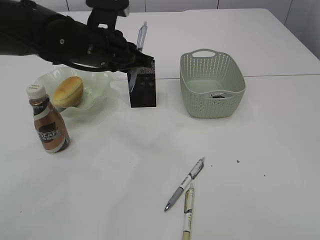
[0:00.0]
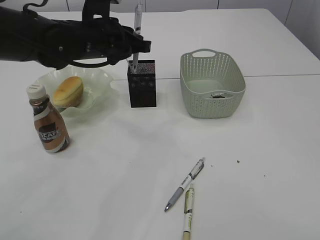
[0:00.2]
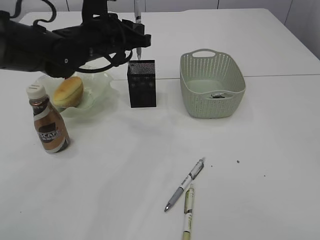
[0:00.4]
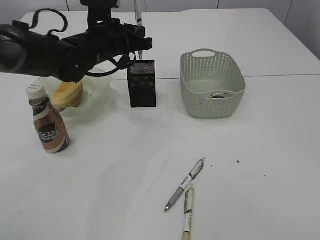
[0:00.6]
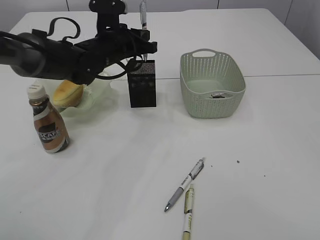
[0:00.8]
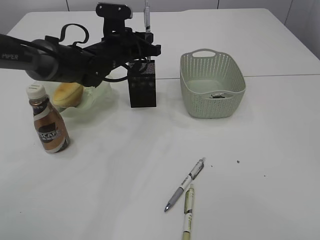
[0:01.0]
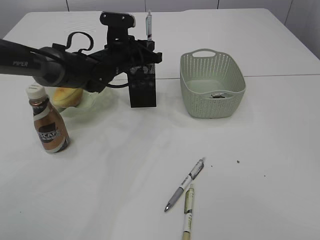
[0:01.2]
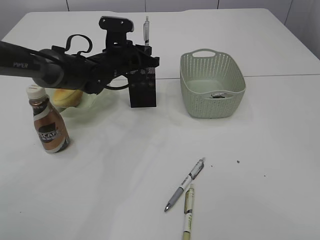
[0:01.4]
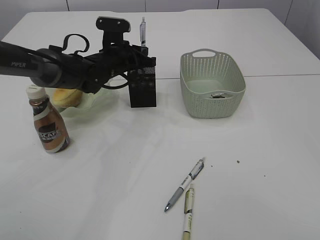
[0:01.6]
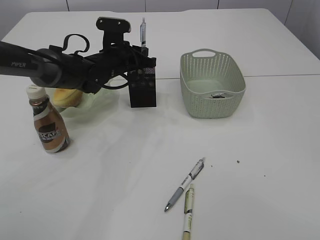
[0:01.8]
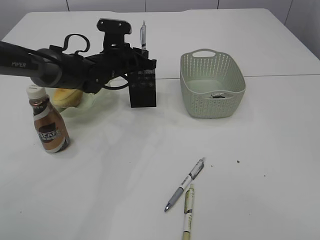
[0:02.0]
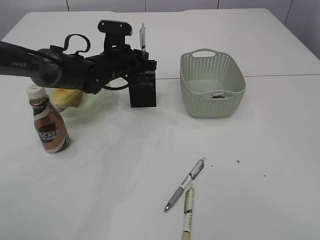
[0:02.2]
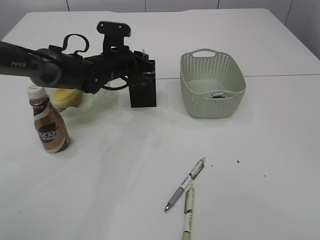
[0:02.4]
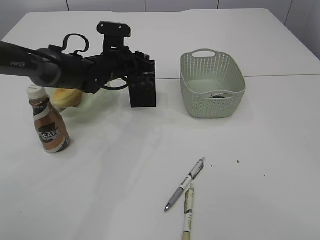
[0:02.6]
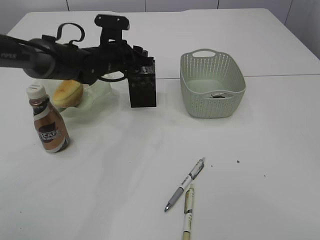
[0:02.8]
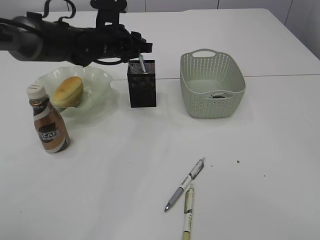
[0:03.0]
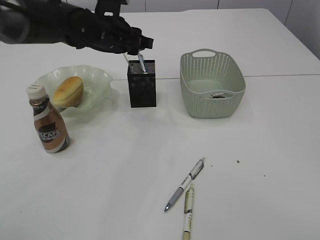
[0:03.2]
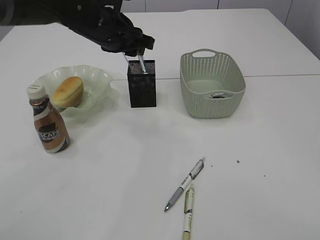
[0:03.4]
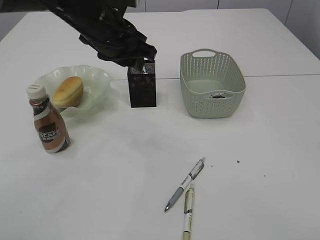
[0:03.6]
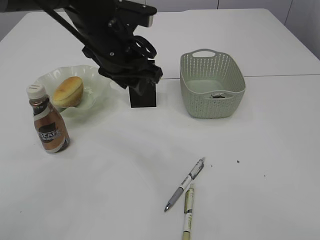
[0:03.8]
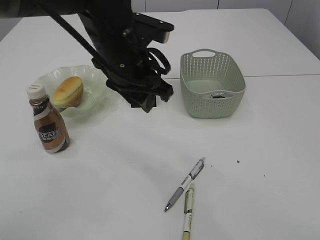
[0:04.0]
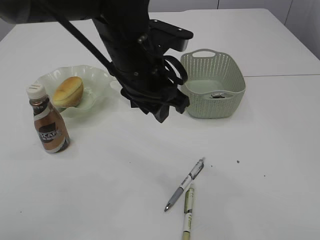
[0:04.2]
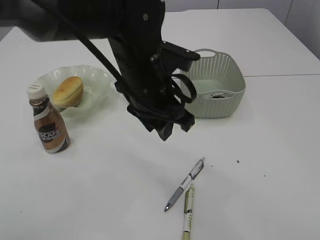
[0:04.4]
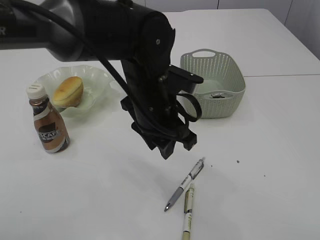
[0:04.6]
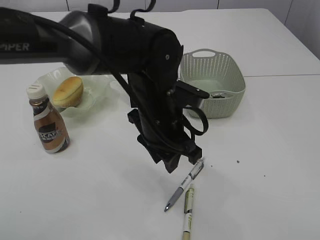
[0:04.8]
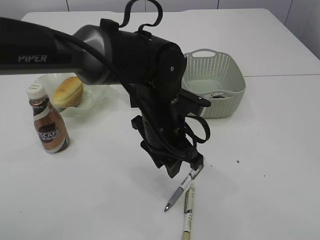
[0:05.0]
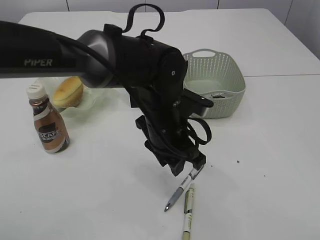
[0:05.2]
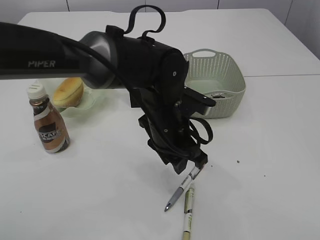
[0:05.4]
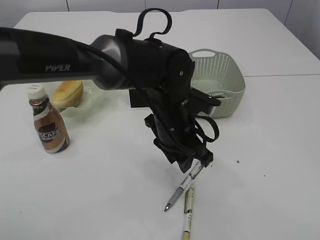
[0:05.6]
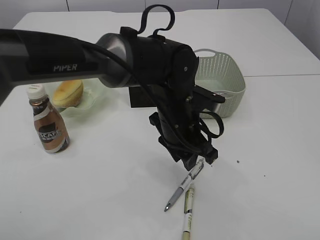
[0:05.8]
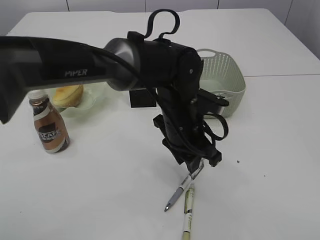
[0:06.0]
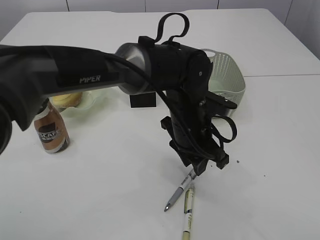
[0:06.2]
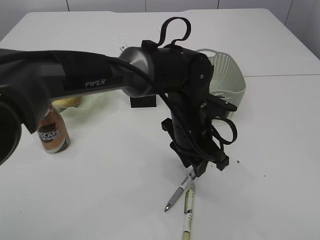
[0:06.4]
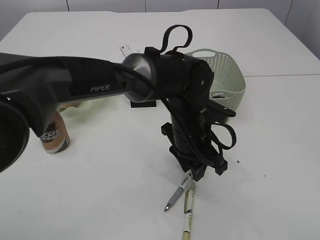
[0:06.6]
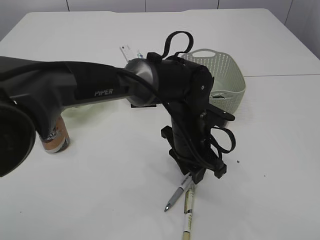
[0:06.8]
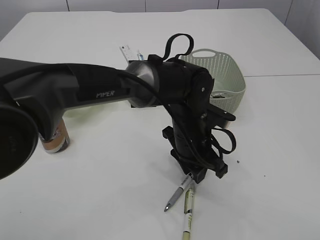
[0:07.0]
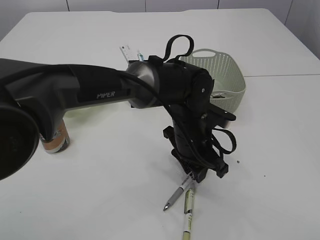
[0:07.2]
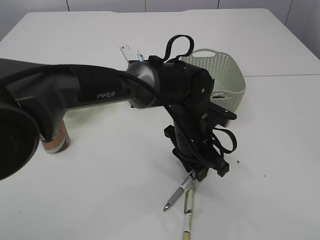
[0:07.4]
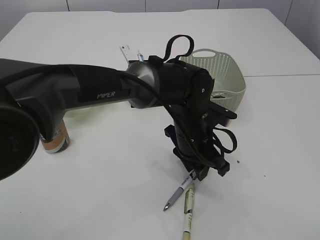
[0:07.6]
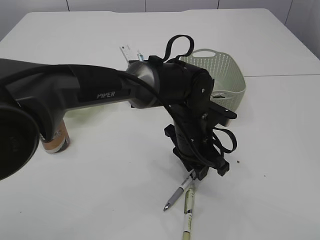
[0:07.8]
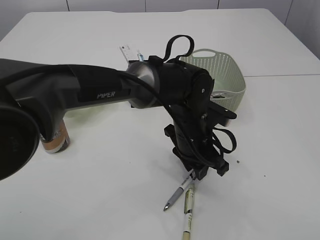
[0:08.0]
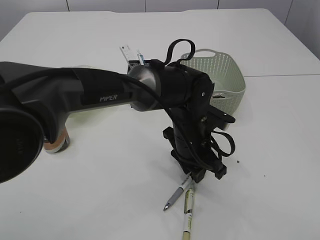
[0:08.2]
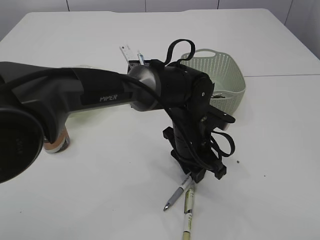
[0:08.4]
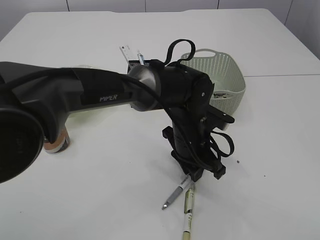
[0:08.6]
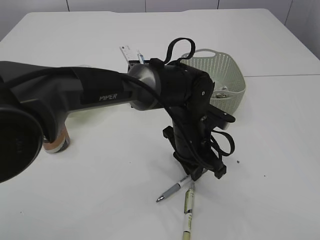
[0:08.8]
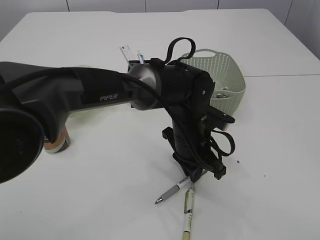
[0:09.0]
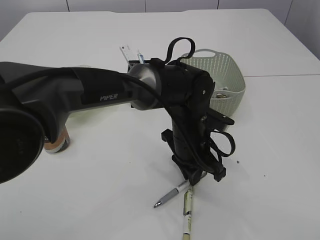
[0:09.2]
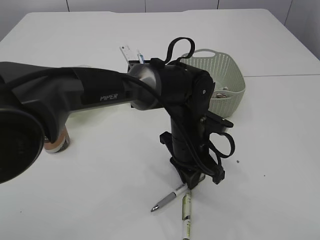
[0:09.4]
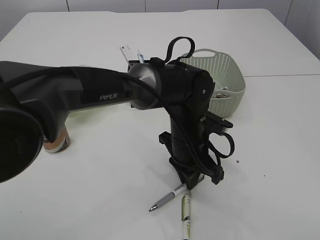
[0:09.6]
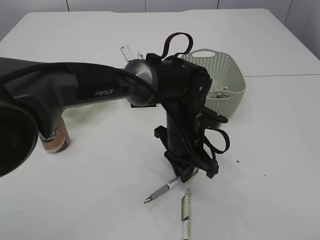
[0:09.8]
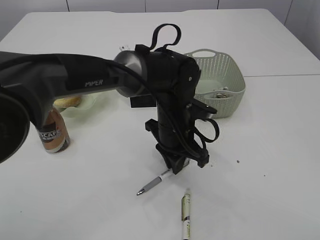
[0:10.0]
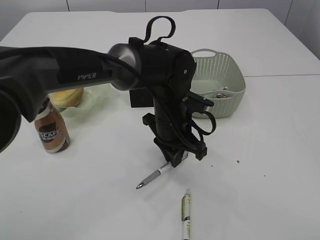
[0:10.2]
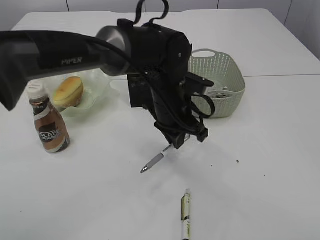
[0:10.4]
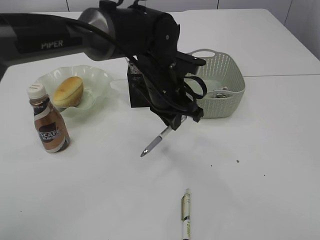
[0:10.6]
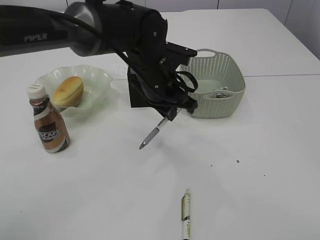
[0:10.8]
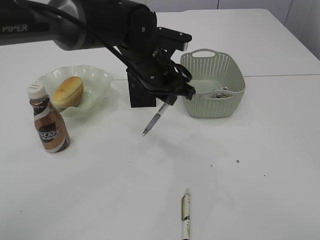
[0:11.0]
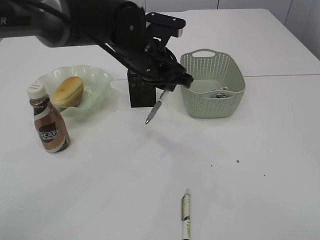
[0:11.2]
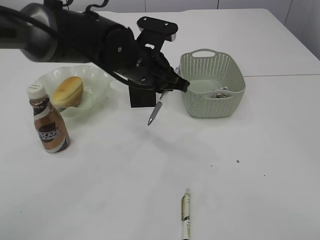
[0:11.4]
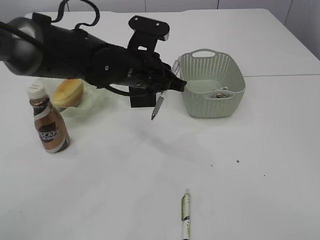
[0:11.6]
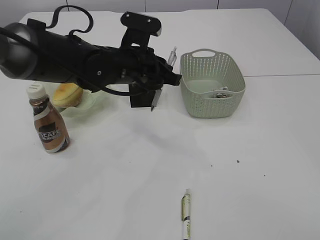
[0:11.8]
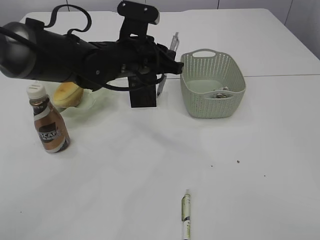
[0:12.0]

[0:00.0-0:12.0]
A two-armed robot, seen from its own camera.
Step, 0:00.0 to 0:03.0: Place the pen into the pen holder.
Step, 0:03.2 to 0:10.0: Pick up the pen with left arm.
0:00.0 to 0:01.6: The left gripper shifts about 15 cm forward and downward.
0:01.6 to 0:03.0: The left gripper opens.
0:03.0 to 0:04.4: The left gripper heads backward and to the right, covering roughly 20 cm.
0:04.4 to 0:06.0: The left gripper travels downward and to the right by approximately 10 cm.
0:06.0 to 0:07.6: The grippers make only small movements.
0:07.6 to 0:09.0: Both grippers stay put.
0:09.0 to 0:10.4: The left gripper goes roughly 5 cm upward.
0:10.4 to 0:12.0: The left gripper is displaced to the left and upward by roughly 10 cm.

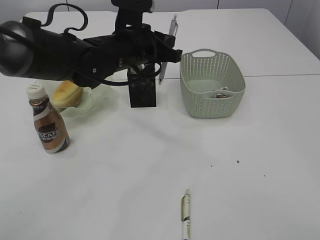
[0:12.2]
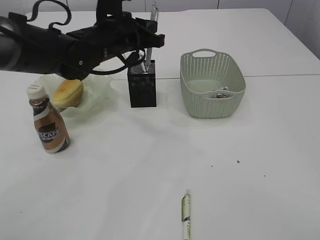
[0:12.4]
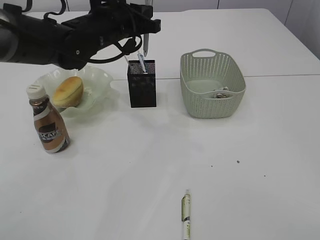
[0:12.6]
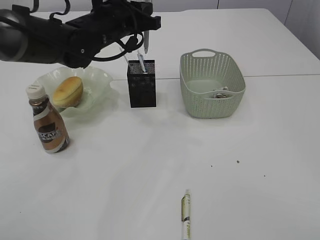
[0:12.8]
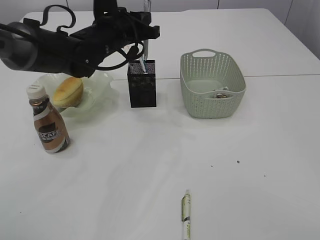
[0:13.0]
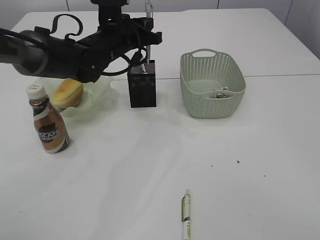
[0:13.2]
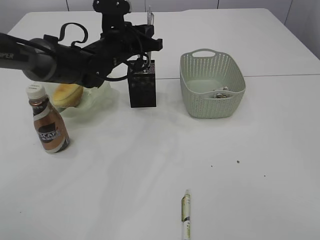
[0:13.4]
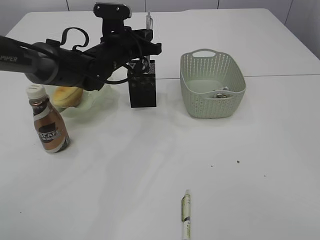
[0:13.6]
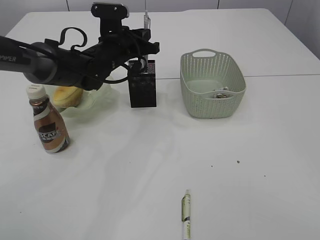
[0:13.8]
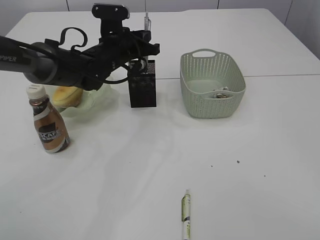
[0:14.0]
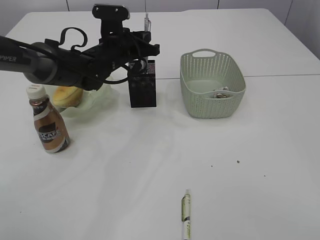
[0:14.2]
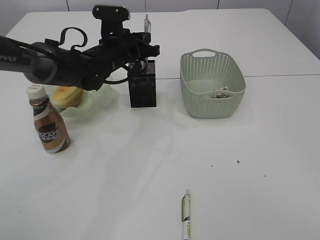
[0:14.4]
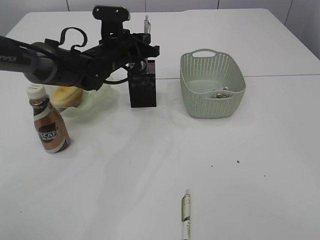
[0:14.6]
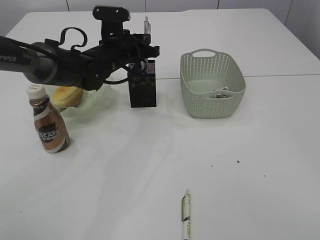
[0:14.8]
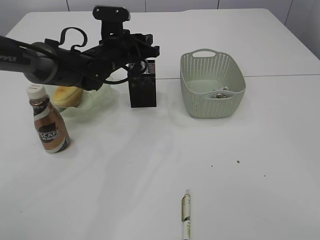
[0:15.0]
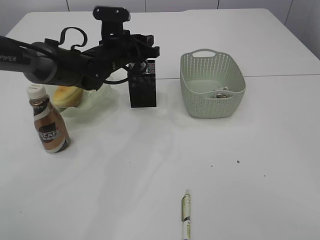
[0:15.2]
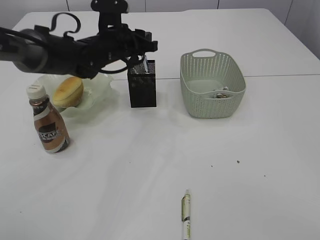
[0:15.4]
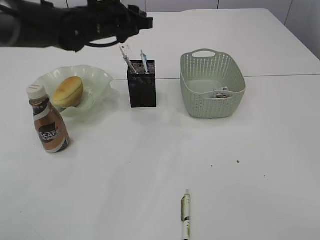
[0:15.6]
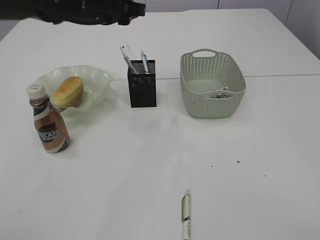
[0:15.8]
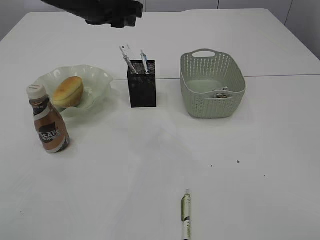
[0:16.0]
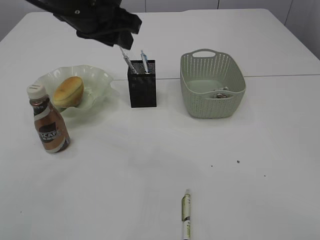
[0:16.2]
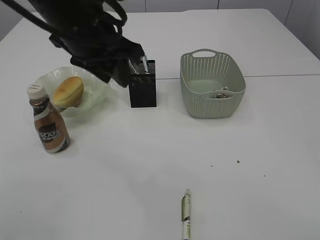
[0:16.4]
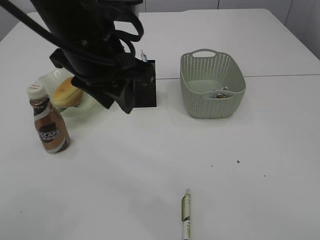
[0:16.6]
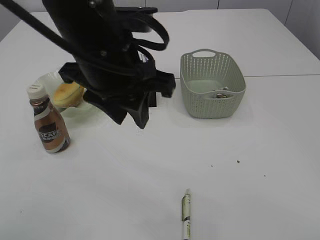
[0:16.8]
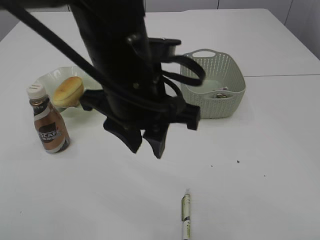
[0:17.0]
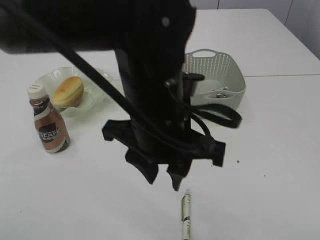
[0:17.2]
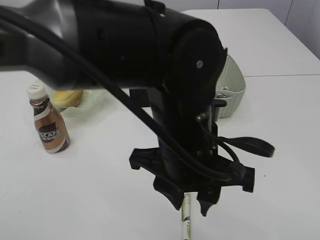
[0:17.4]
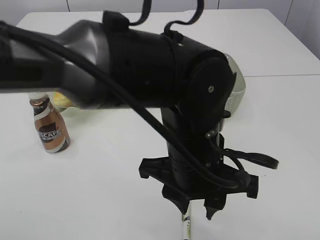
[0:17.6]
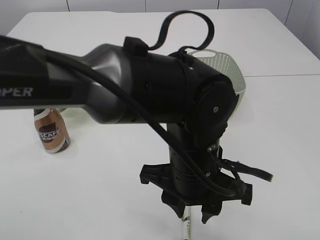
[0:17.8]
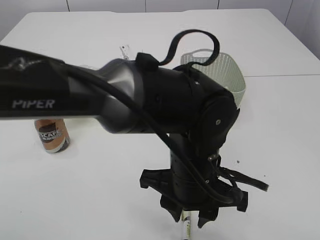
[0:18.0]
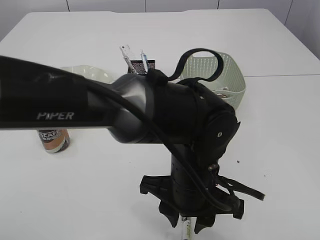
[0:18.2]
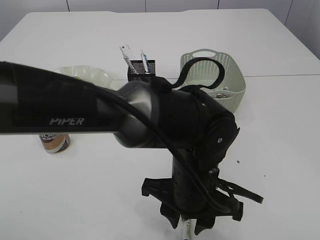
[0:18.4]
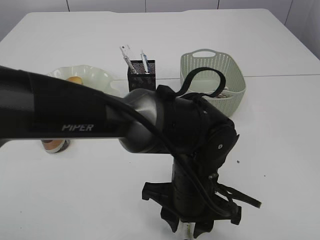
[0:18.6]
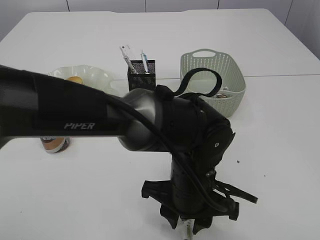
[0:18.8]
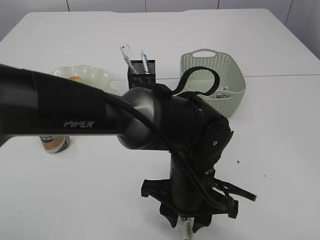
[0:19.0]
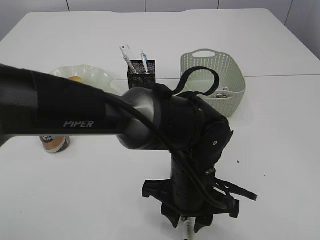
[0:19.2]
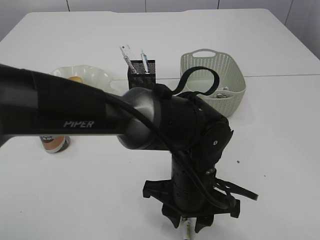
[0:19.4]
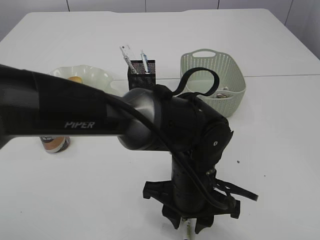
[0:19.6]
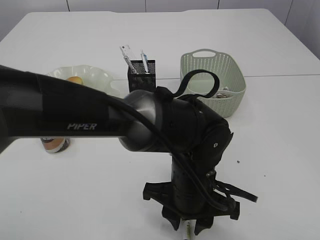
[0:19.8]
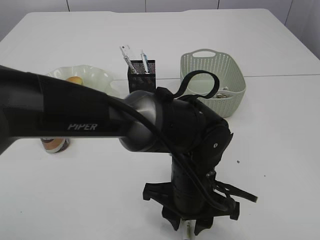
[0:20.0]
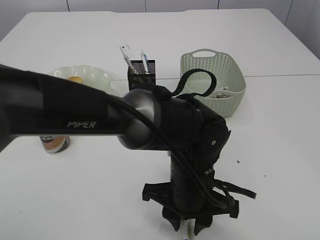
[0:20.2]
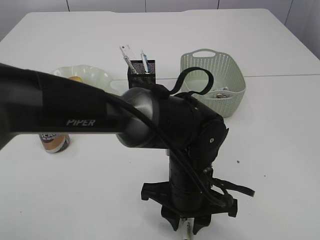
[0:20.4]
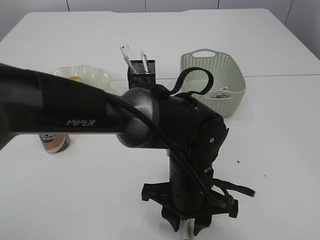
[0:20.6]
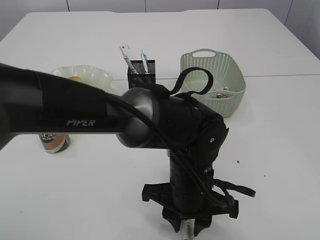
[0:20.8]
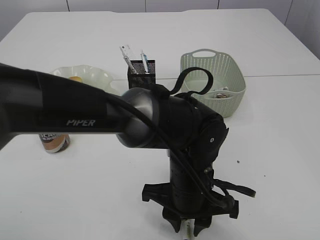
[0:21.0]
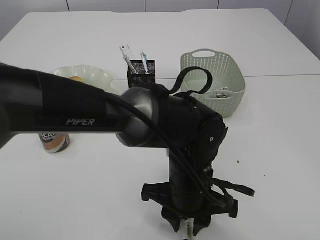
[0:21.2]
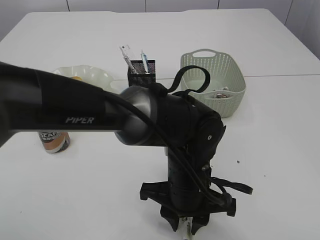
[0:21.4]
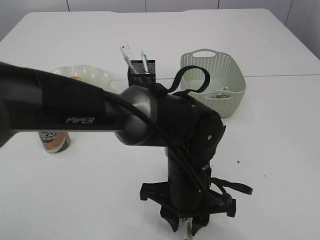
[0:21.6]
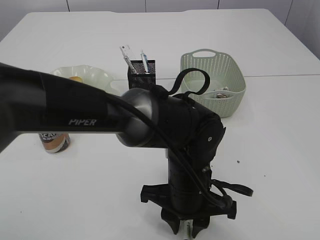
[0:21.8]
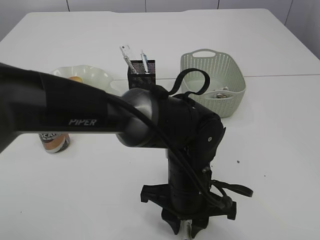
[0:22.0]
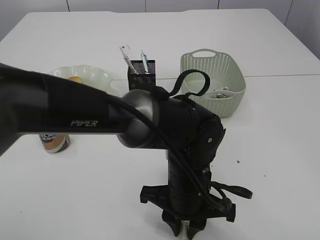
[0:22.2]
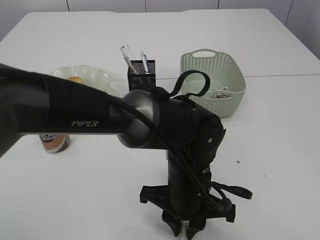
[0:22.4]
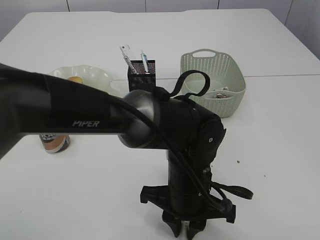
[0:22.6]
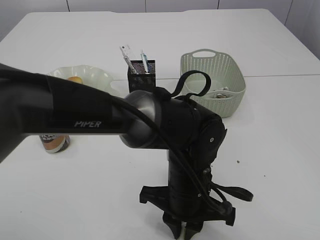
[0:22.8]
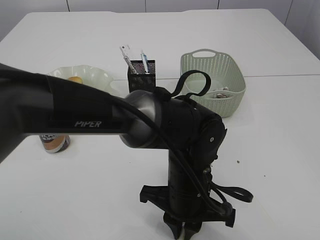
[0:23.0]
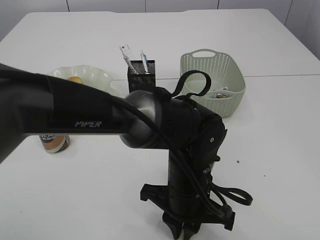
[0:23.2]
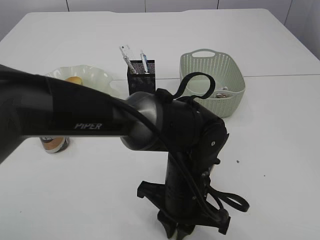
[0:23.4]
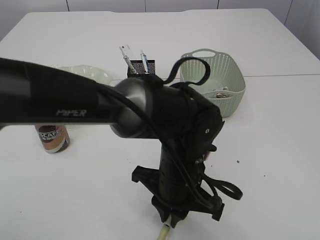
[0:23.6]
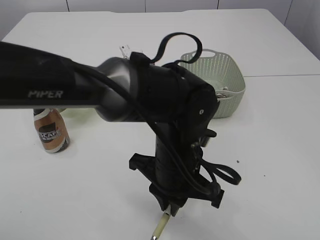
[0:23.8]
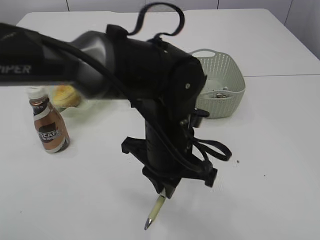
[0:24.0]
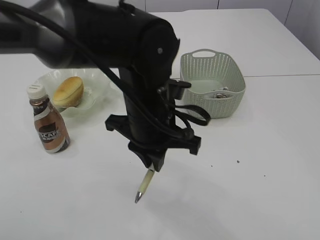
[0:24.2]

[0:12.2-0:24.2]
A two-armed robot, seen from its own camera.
Step, 0:12.2 to 0:15.4: Place the pen into the pen holder.
Step, 0:15.6 to 0:23.8: Pick up the pen with left arm.
0:12.2 to 0:13.8: The left gripper travels forward by roughly 10 cm.
0:13.8 to 0:15.2: The left gripper opens.
0:15.2 to 0:16.6: The left gripper shifts some 25 cm backward and upward.
0:16.6 to 0:18.2: The left gripper travels downward, to the right and backward by about 20 cm.
0:18.2 to 0:19.8: The grippers move only a little.
0:19.8 to 0:21.2: The two grippers keep their place.
0:21.2 to 0:22.6: Both grippers stay put.
0:22.6 to 0:24.2: The left gripper goes some 10 cm upward.
